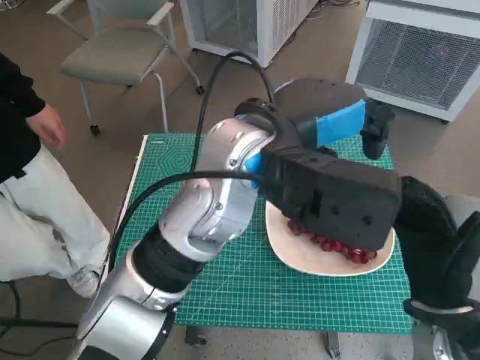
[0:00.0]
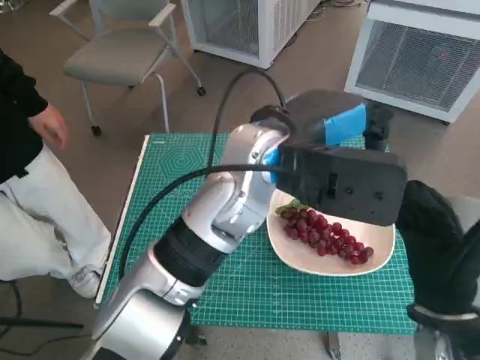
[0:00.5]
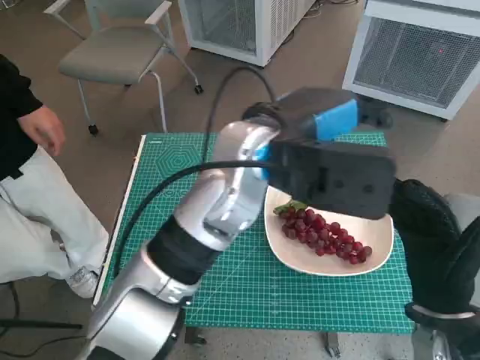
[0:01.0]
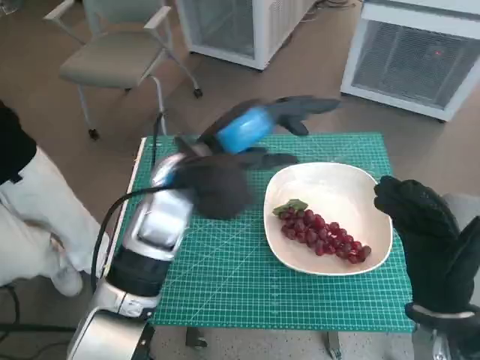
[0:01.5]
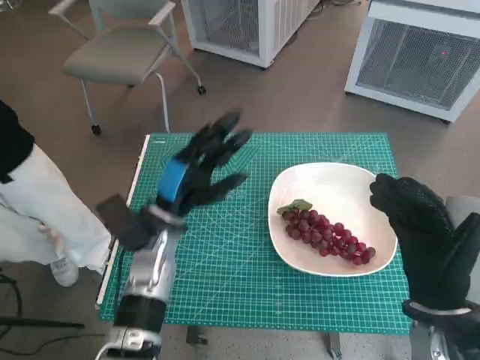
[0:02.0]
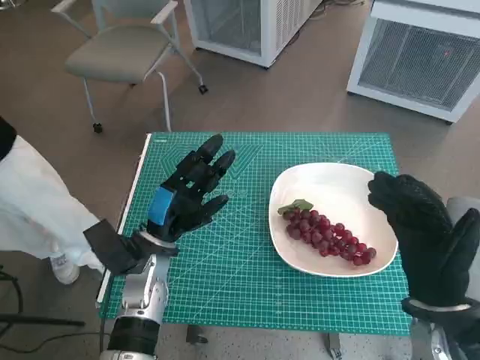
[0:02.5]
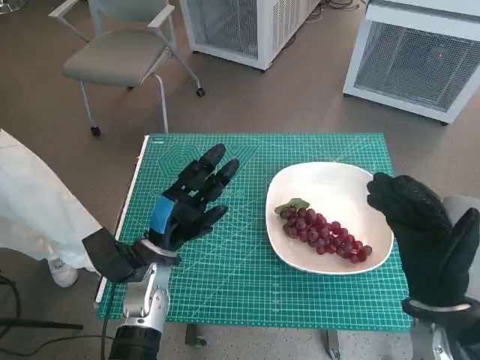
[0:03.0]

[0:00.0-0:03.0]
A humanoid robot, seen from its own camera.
Task of the whole recording: Pick up the grapes and put them on the plate.
0:00.0 to 0:01.5: The left hand travels to the left and downward by roughly 10 cm.
0:01.5 to 0:03.0: The left hand is displaced downward and to the left by about 20 cm.

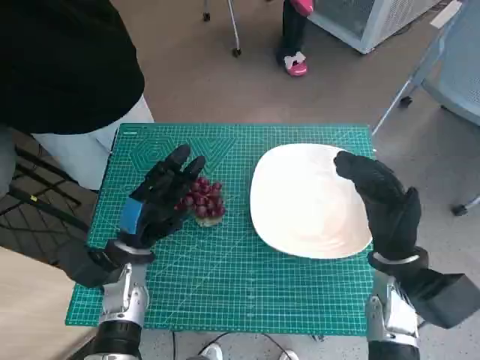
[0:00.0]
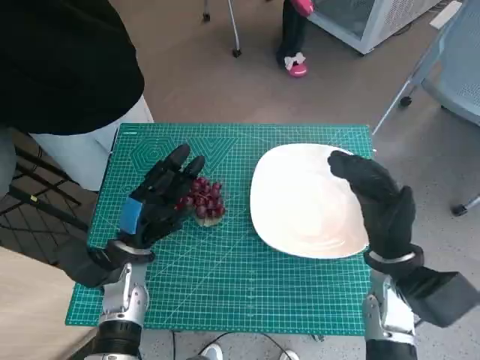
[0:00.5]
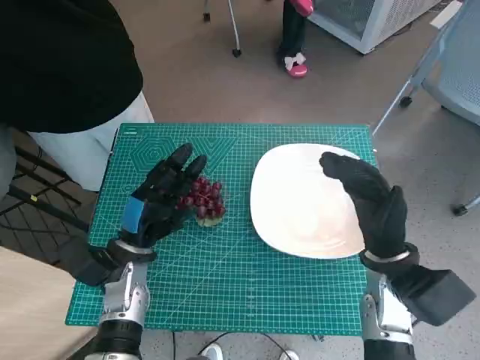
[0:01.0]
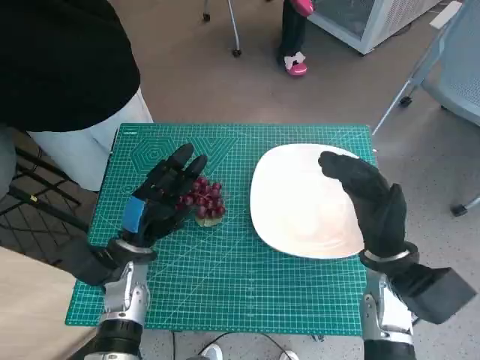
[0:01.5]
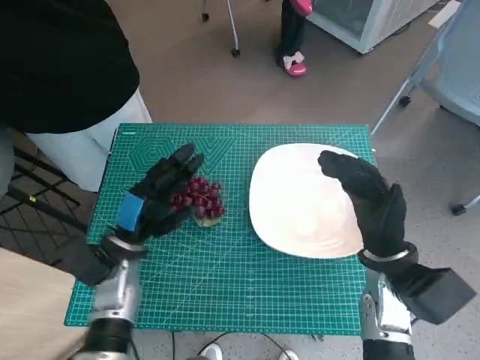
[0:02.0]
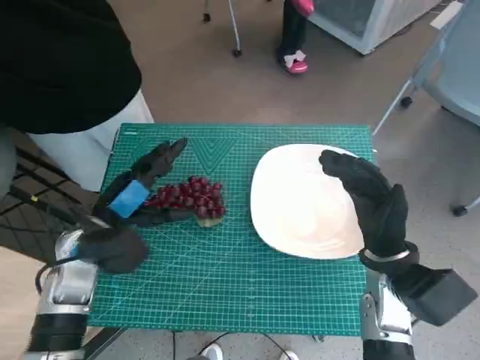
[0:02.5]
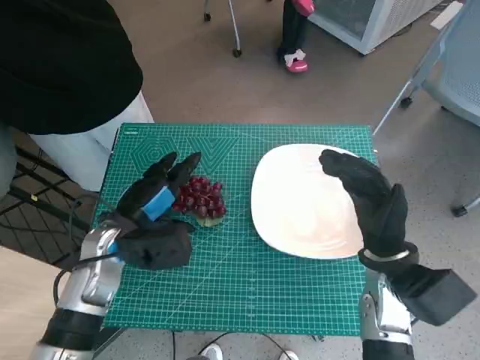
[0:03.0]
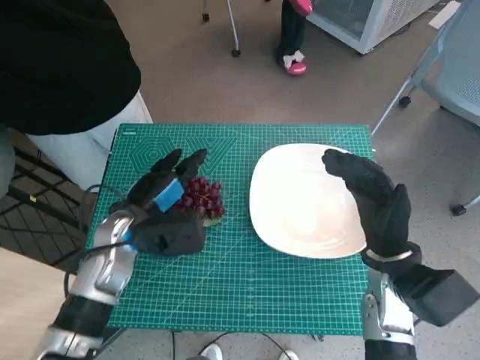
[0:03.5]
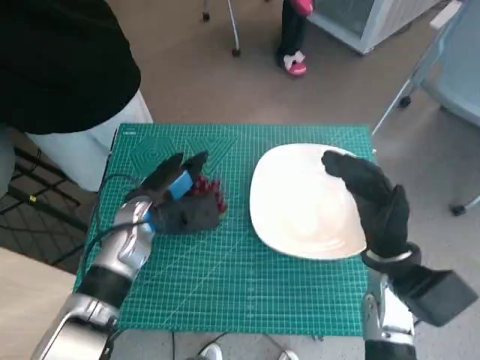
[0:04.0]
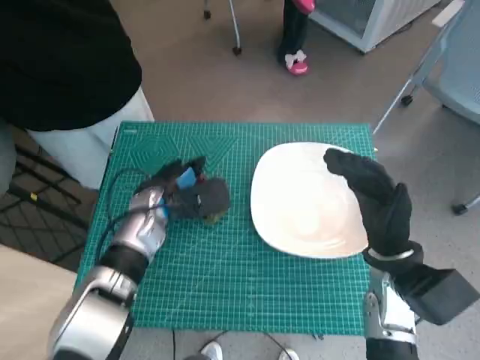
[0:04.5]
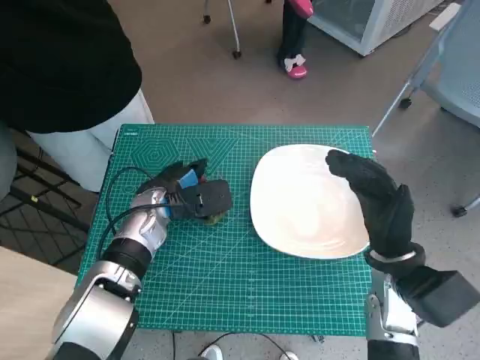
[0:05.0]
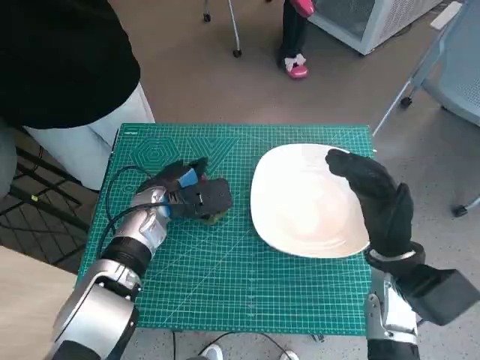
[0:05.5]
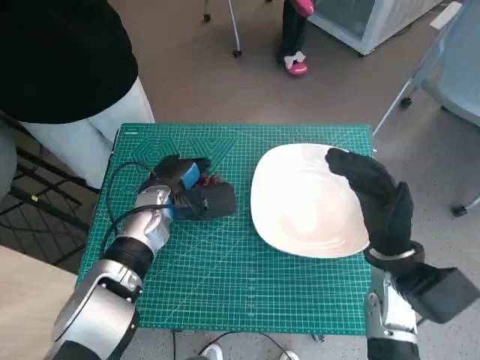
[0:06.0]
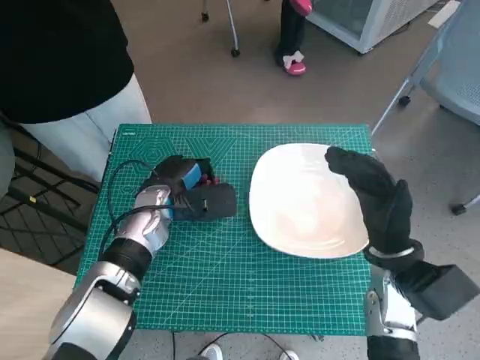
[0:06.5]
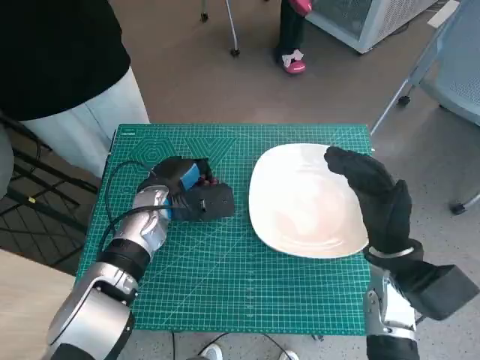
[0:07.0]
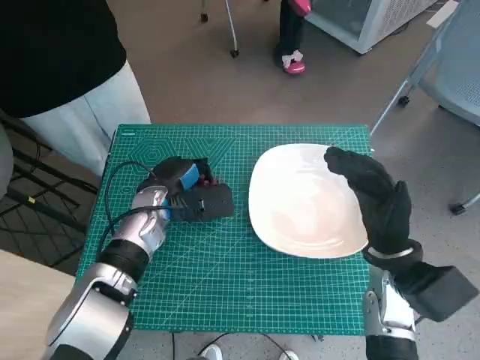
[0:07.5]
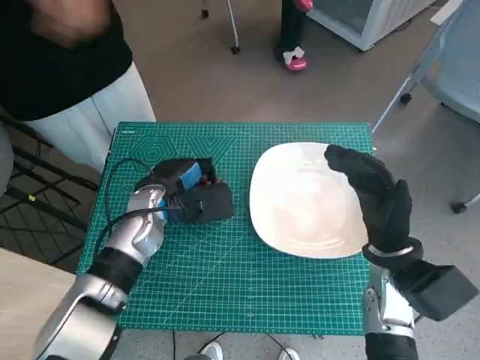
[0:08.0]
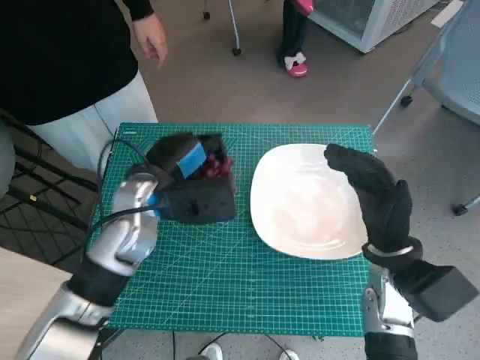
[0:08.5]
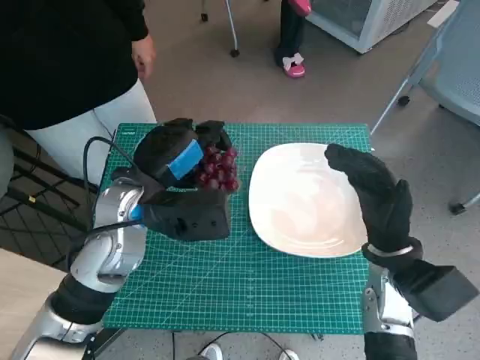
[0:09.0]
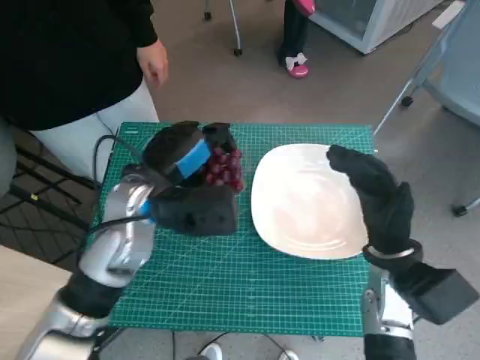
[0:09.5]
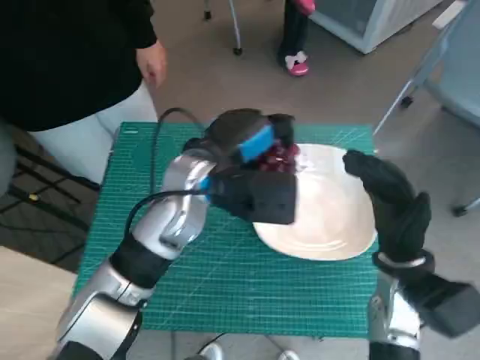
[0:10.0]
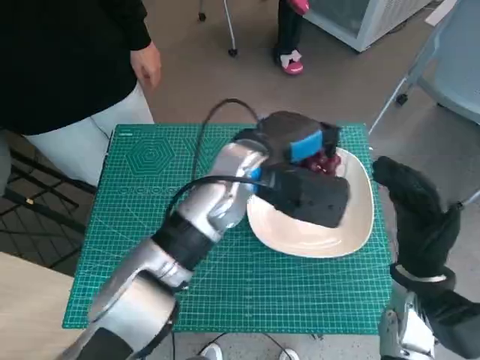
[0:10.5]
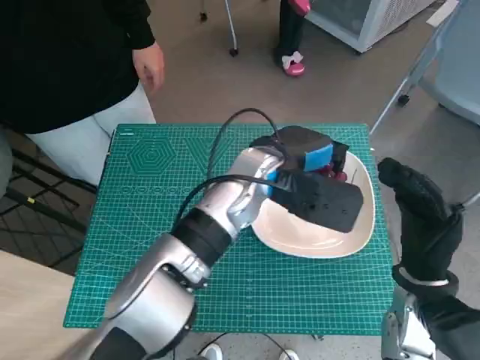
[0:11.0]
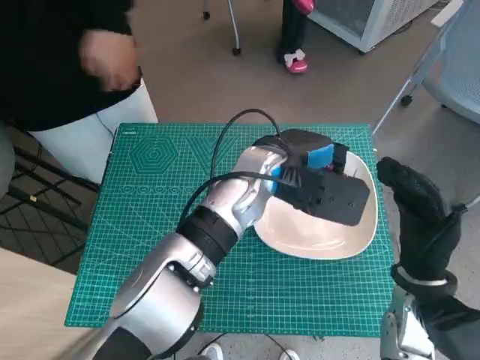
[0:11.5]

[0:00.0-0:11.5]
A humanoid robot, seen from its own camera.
Task of the whole recording: Pick up the grapes and put them on the plate.
Step, 0:00.0 to 0:06.0: Grasp the grapes with left hand.
0:02.0 to 0:04.0: The left hand moves forward, some 5 cm.
0:04.0 to 0:06.0: The hands move only a little.
0:06.0 to 0:07.5: Both hands stay about where they are.
0:07.5 to 0:09.5: The left hand travels upward by about 10 cm.
0:09.5 to 0:11.5: The left hand heads to the right, covering some 15 cm.

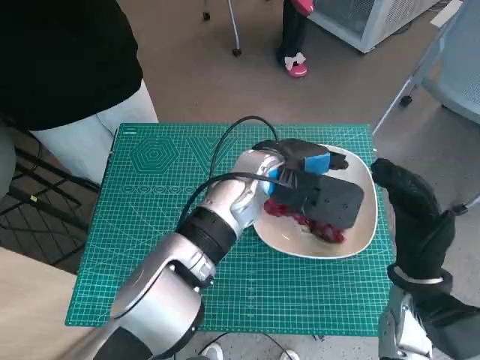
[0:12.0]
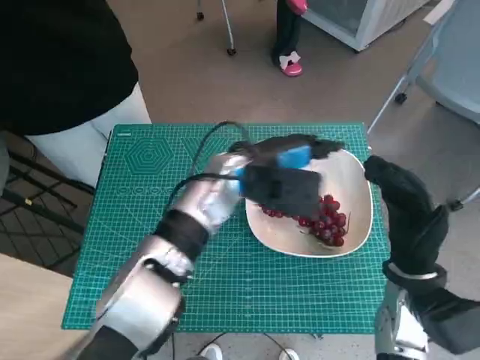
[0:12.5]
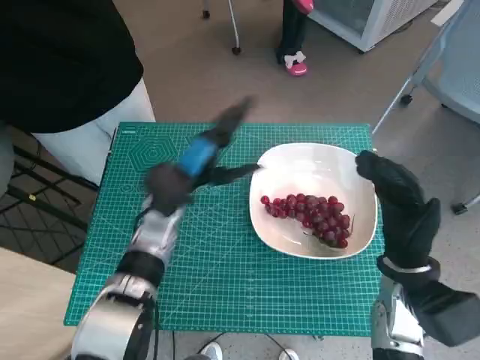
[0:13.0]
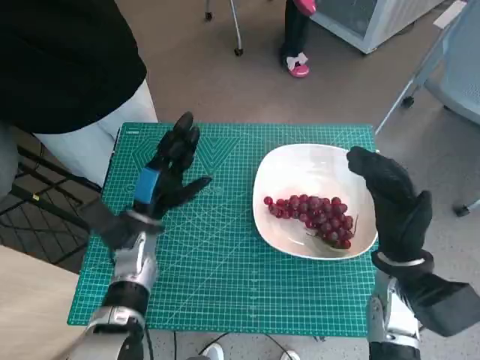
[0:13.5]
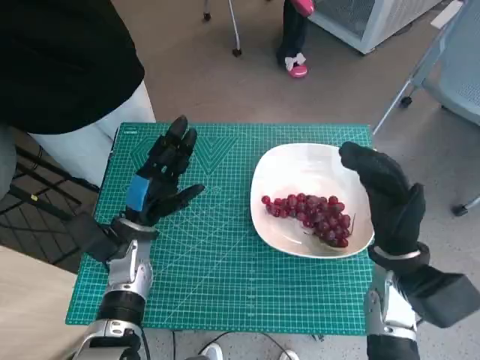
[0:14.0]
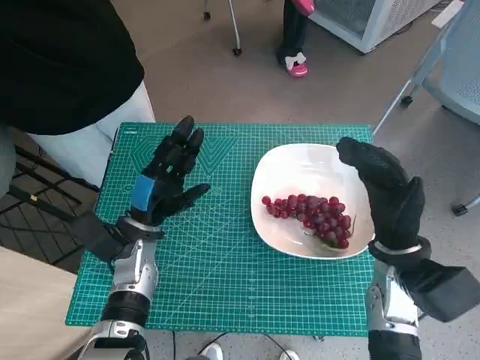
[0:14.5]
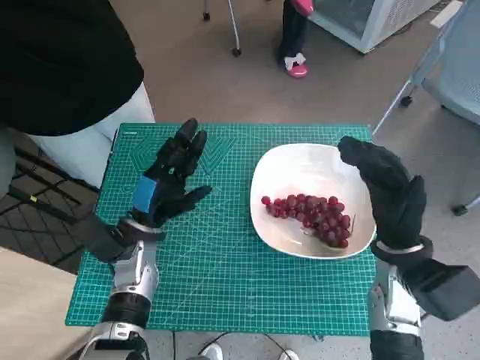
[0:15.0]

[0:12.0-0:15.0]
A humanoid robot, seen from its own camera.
Task of the whole recording: Pick up the grapes and put them on the plate.
0:12.0 to 0:13.5: The left hand travels to the left and downward by approximately 20 cm.
0:13.5 to 0:15.0: The hands stay close to where they were, moving slightly.

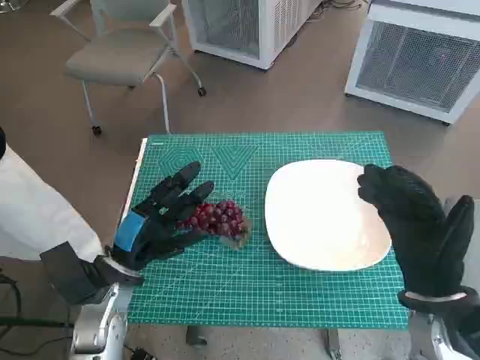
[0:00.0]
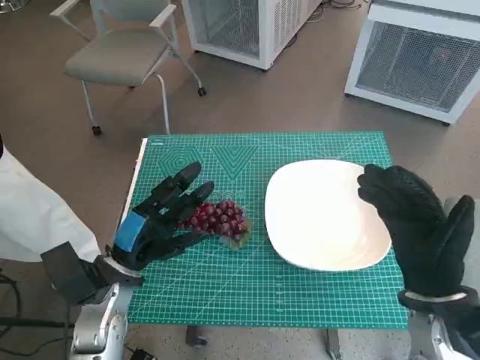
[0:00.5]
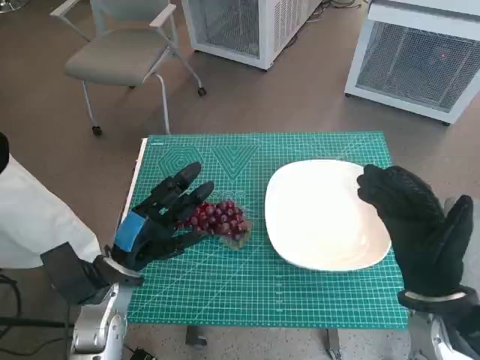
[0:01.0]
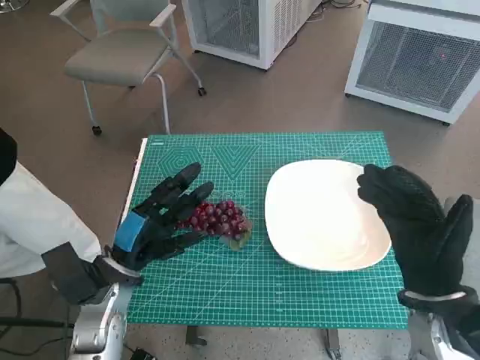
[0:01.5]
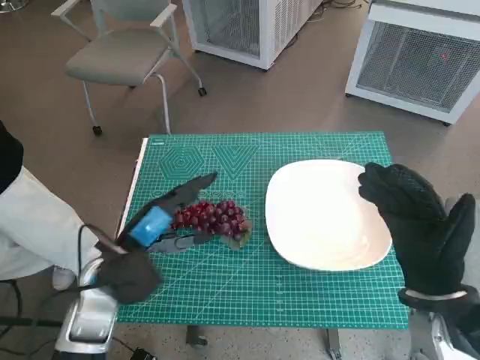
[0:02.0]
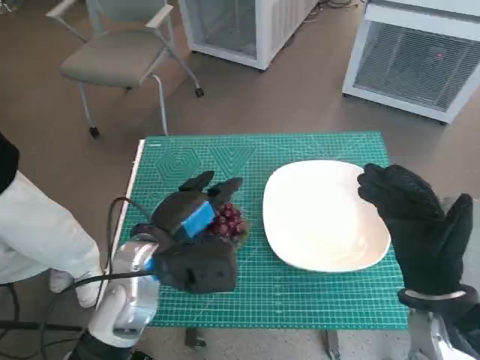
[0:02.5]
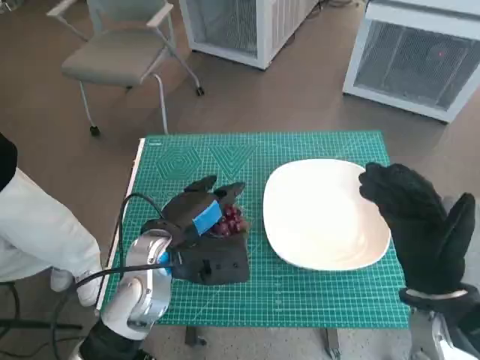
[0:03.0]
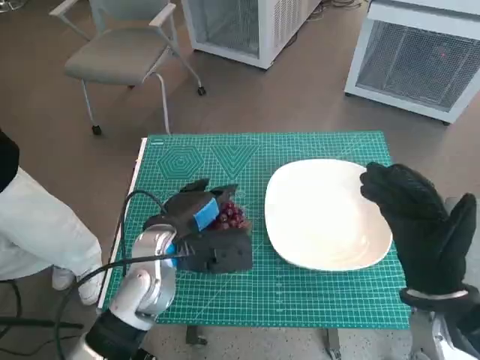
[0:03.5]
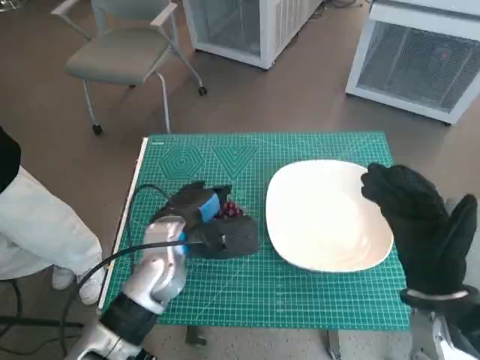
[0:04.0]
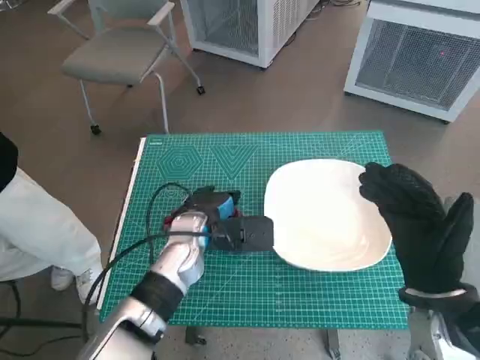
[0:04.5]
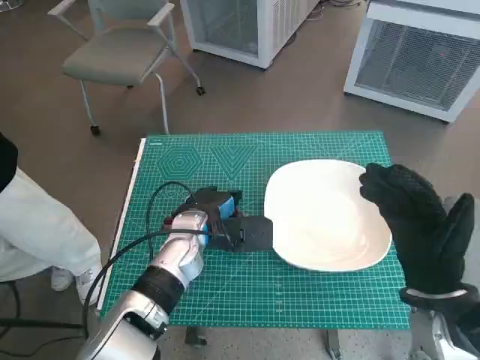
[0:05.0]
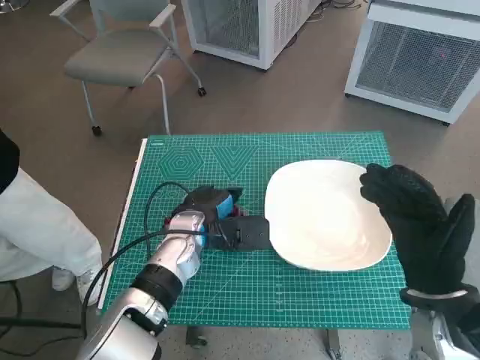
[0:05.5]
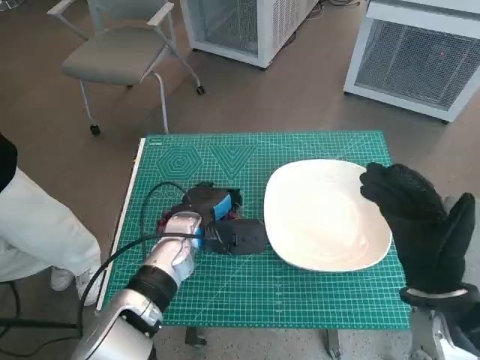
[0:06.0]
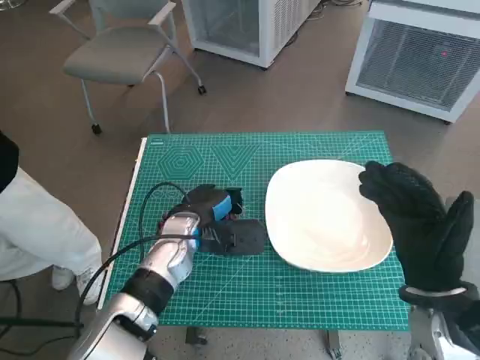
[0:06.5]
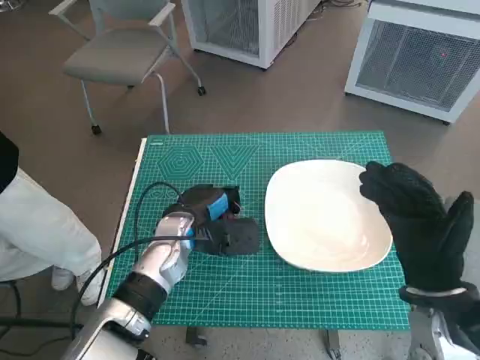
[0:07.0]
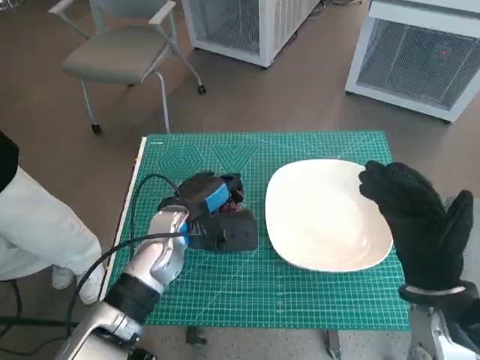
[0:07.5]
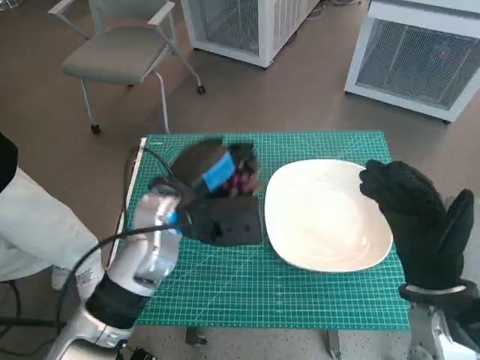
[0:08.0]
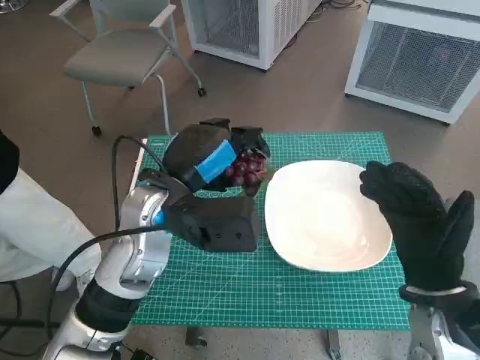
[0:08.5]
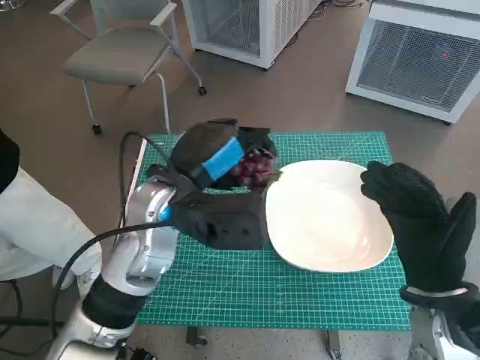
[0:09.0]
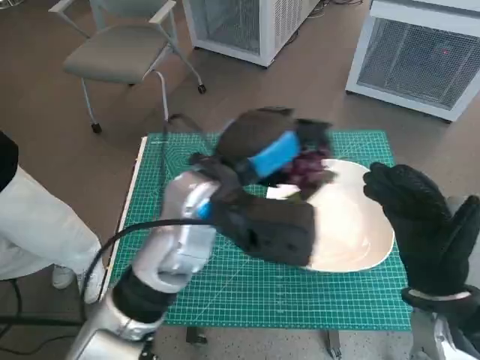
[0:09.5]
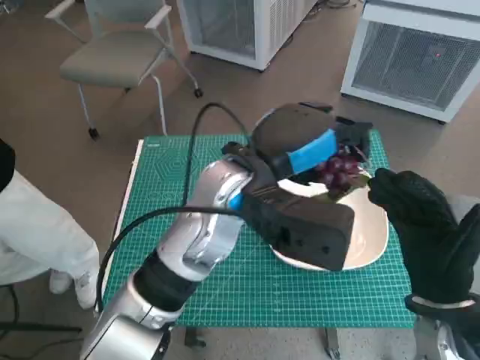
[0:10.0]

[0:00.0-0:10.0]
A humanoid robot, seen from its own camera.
Task of the whole recording: Pick up the grapes and put them on the plate.
Step, 0:00.0 to 0:06.5: Grasp the grapes with left hand.
0:02.0 to 0:04.0: The left hand travels to the right and forward by about 10 cm.
0:04.0 to 0:06.0: The left hand shifts by approximately 5 cm.
0:06.0 to 0:08.0: The left hand moves upward, roughly 10 cm.
0:08.0 to 0:10.0: The left hand heads to the right and upward, covering approximately 10 cm.
